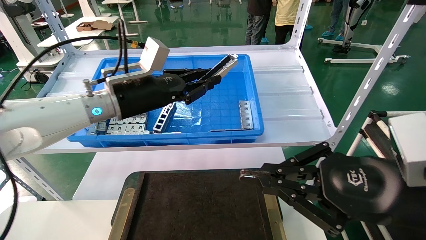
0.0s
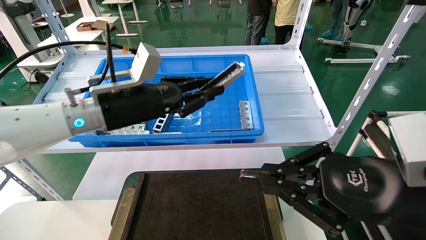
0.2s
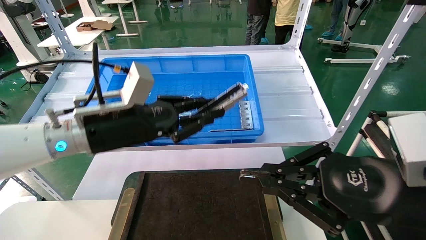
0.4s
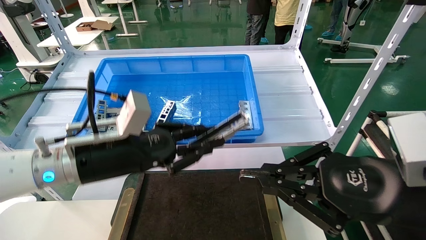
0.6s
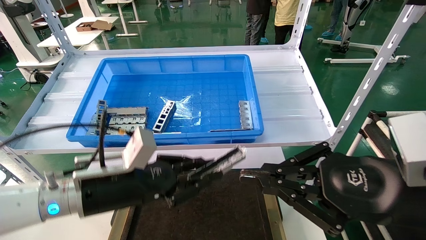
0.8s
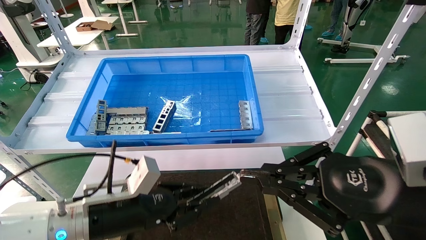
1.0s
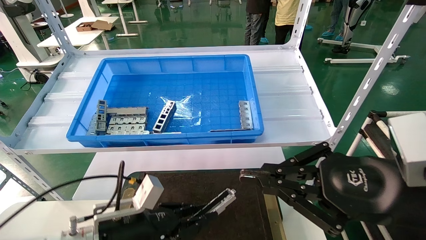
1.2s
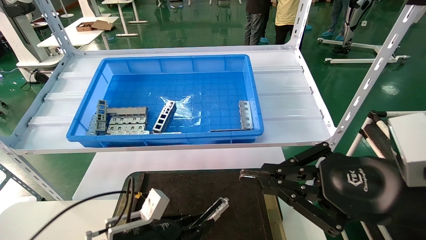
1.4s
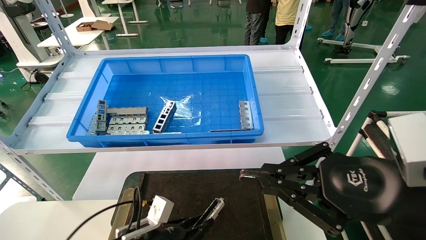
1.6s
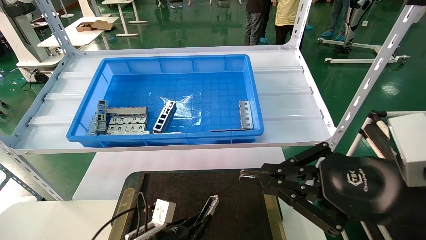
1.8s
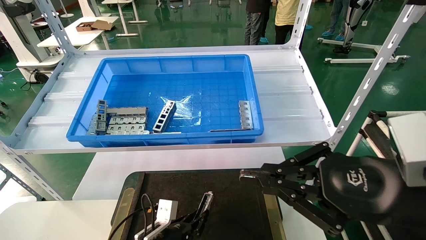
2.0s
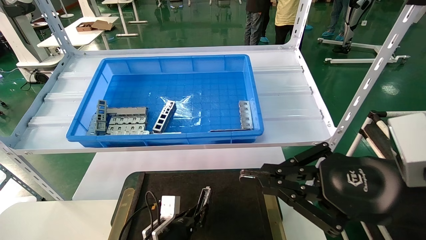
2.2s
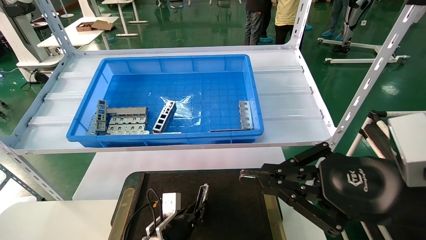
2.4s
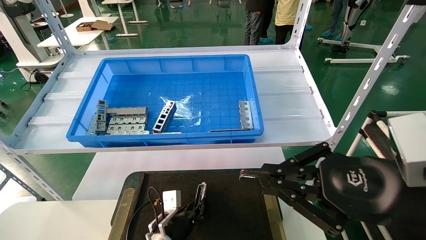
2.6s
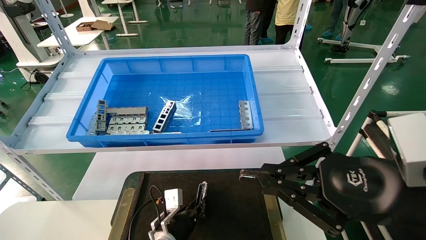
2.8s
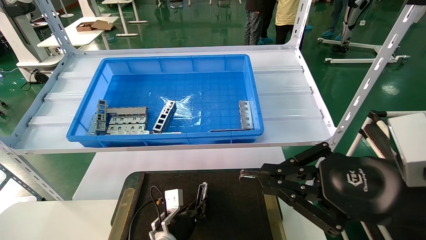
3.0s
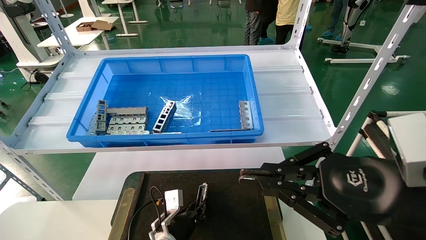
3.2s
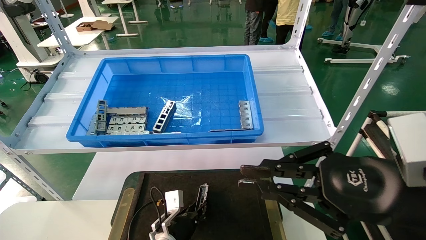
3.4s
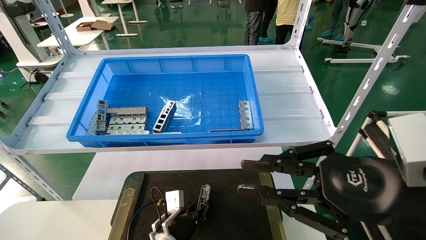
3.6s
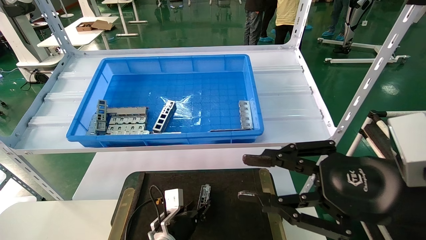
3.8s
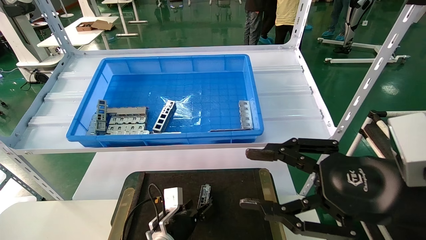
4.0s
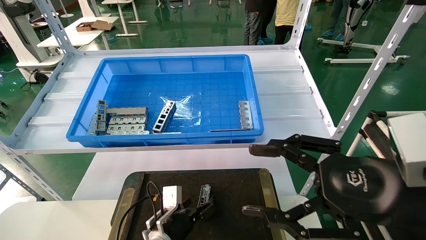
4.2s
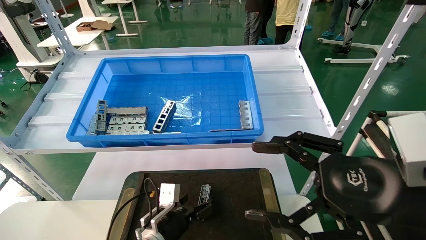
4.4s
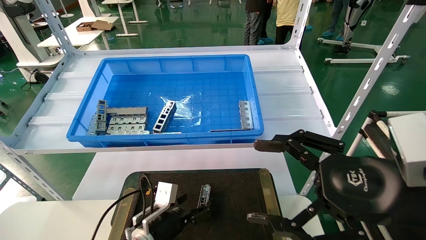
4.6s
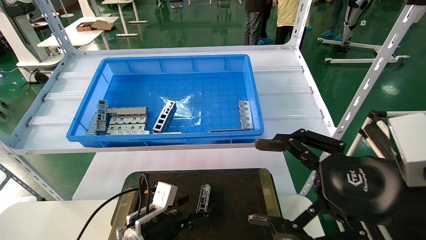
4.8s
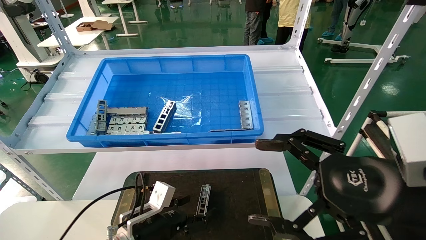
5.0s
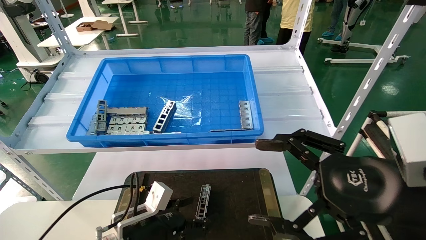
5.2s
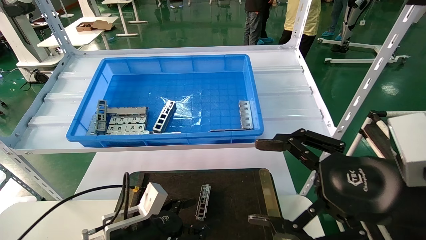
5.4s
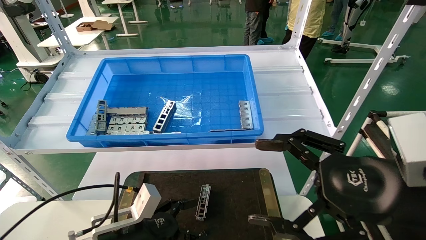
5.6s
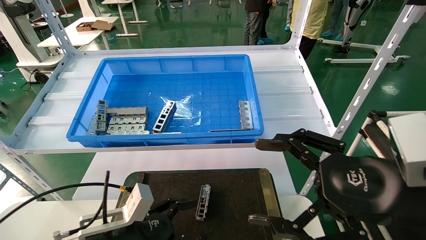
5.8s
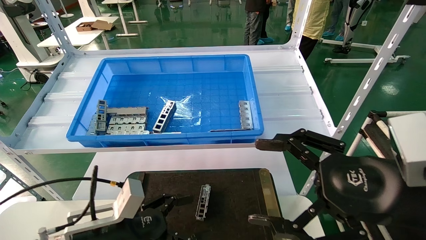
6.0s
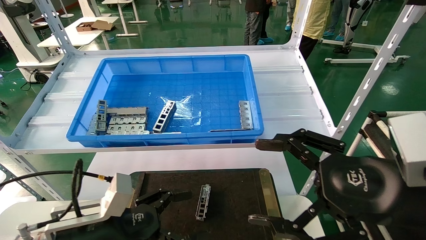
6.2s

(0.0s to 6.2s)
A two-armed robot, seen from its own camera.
Task of the whole recording: Grasp the part with one hand and place it on the black container.
Step, 0.0s - 3.8s: Place the front USB bracket into the box.
0.0s - 1.6s: The left gripper goes about 30 cm downward.
1.6s - 3.2s: The left gripper travels forward, to the right and downward by approximately 10 cm.
3.2s - 4.6s: The right gripper opens its fingers, while the left gripper goes roughly 5 cm upward, and opens its fingers.
4.6s - 6.2s: The left gripper goes about 20 cm upward, backward and to the left.
